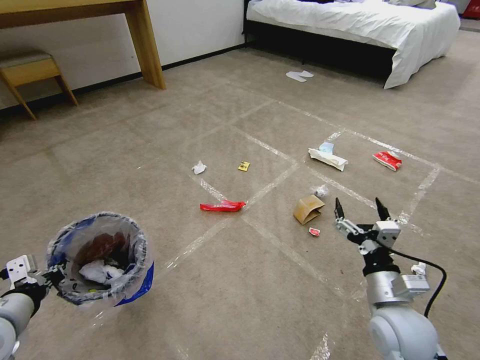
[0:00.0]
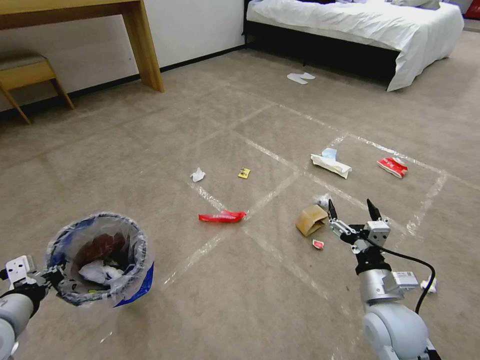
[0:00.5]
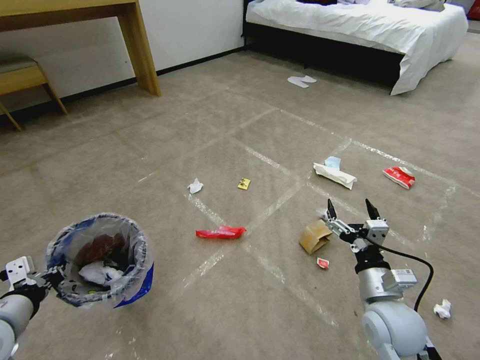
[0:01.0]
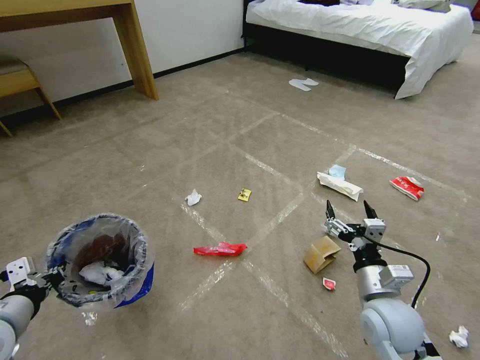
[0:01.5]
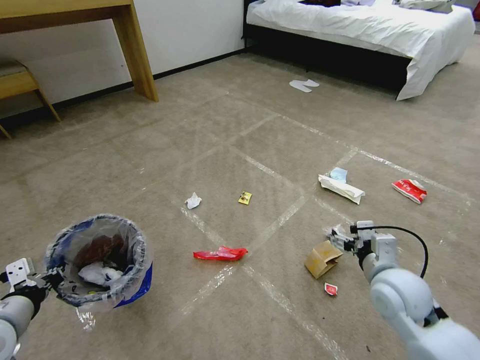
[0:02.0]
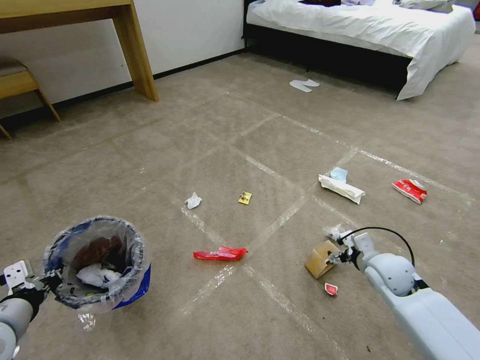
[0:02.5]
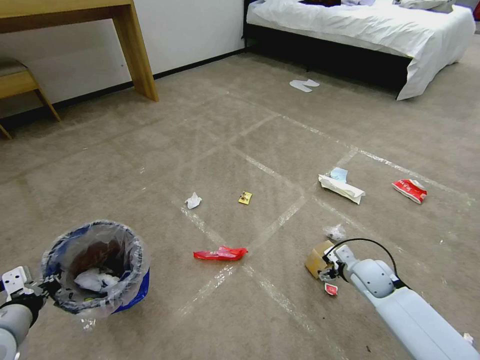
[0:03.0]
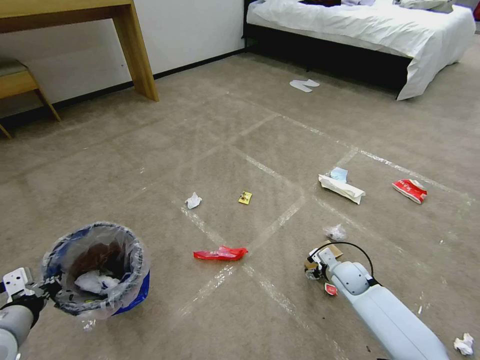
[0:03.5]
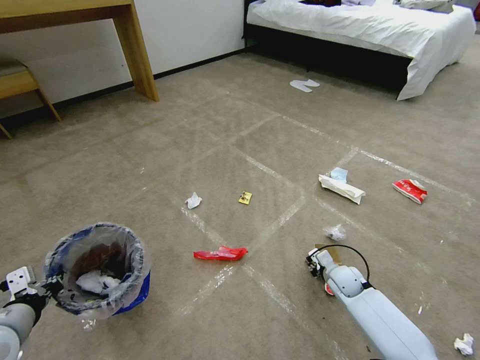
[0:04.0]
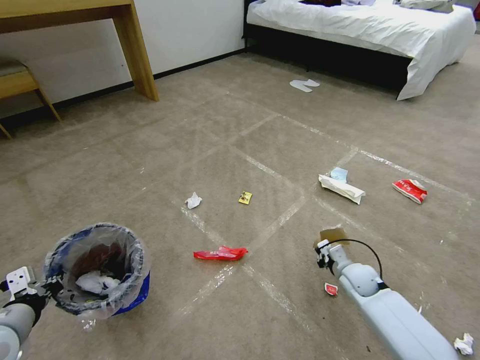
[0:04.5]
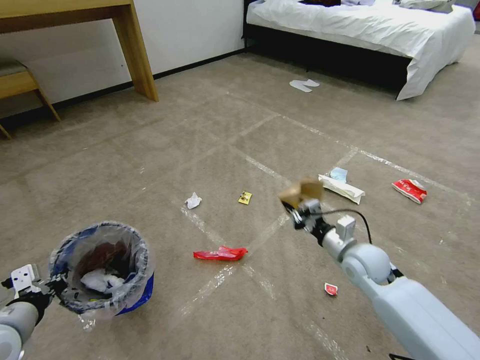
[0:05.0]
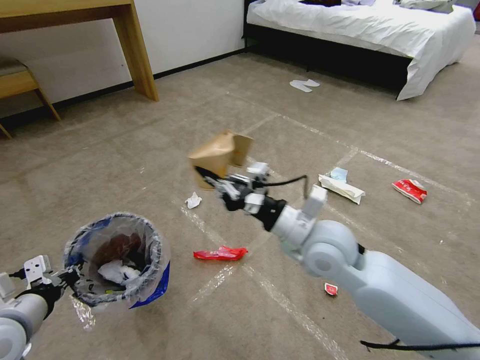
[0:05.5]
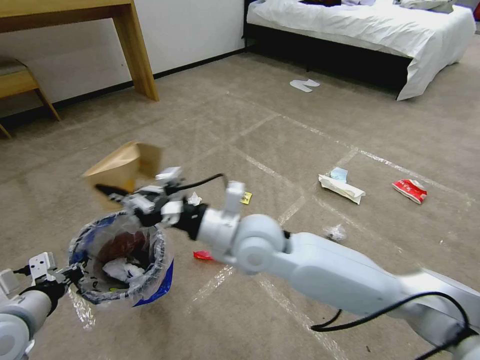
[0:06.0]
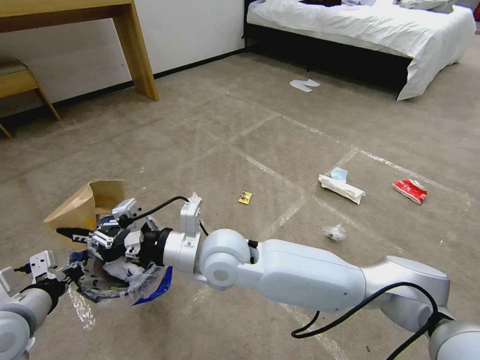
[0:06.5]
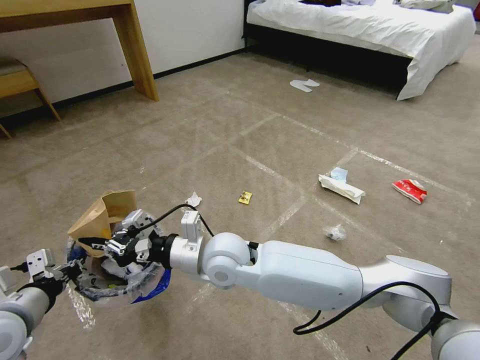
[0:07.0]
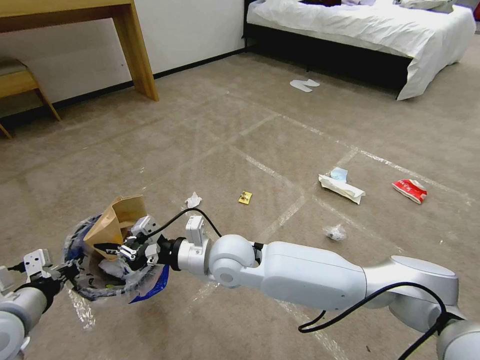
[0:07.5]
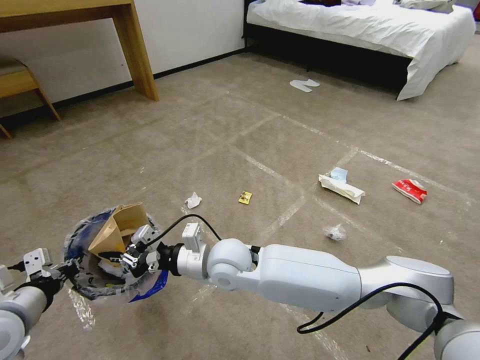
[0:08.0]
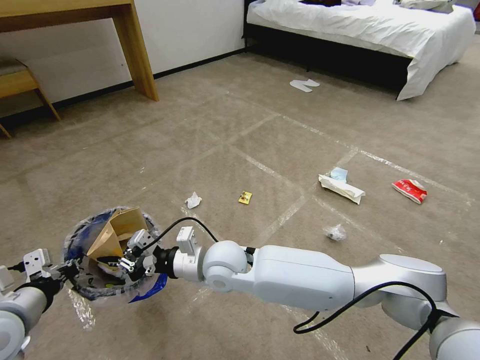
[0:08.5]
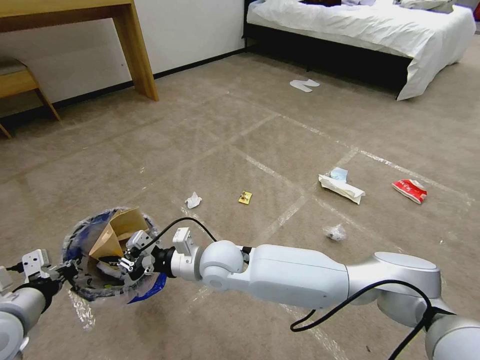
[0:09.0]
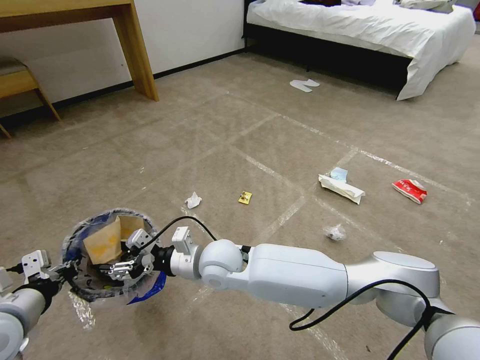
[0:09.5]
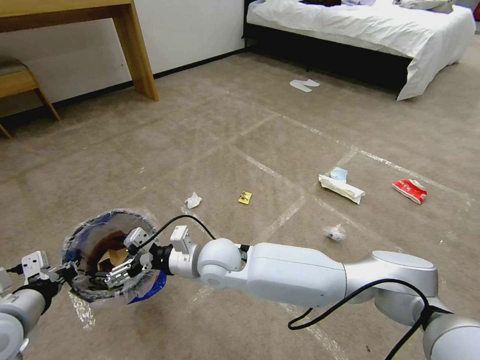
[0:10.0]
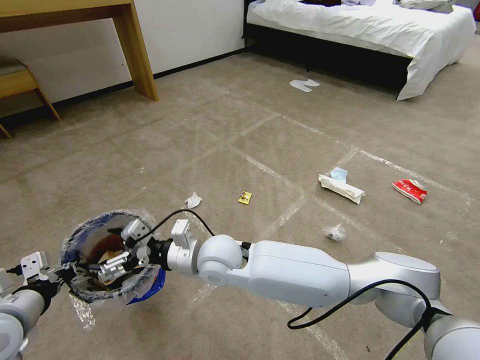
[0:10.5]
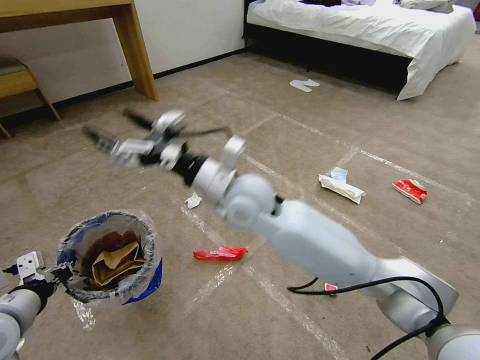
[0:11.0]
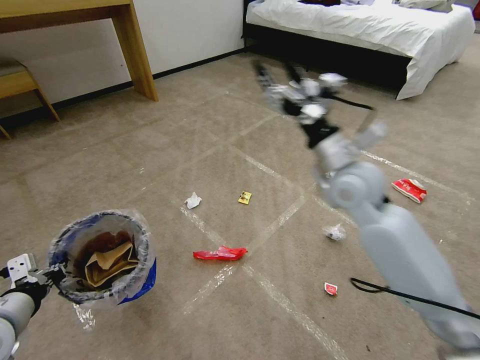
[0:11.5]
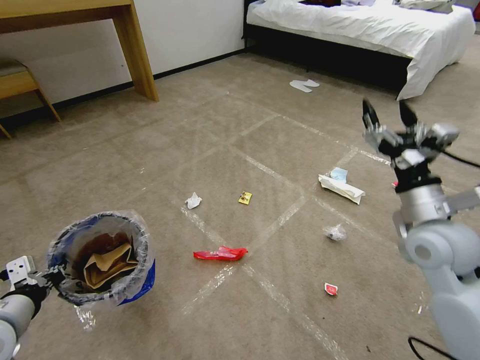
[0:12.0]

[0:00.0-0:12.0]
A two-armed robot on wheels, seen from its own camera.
Task of the whole recording: Pick up the trash bin and place the garbage on the floor into it.
0:00.0 to 0:02.0: The right gripper changes place by about 5 cm.
0:02.0 to 0:04.0: The right gripper travels downward and forward by about 25 cm, and closes its fingers.
0:04.0 to 0:06.0: The right gripper moves upward and to the left, roughly 40 cm.
0:06.0 to 0:08.0: The right gripper is displaced downward and to the left by some 10 cm.
0:08.0 to 0:10.0: The right gripper opens up.
0:10.0 to 0:12.0: The right gripper heads to the right, covering approximately 40 cm.

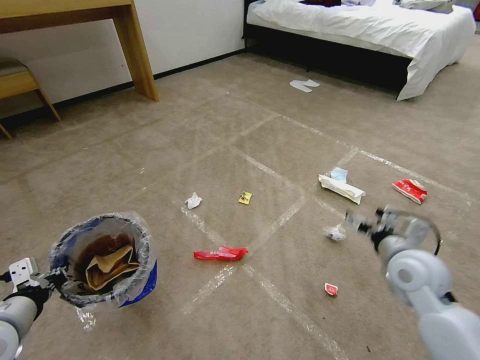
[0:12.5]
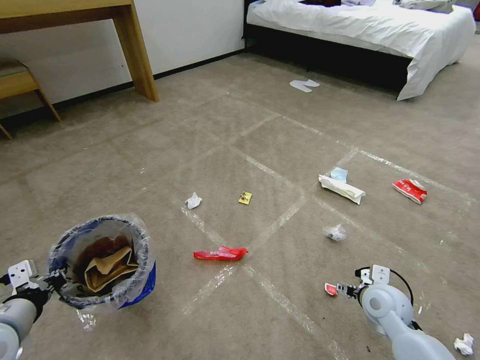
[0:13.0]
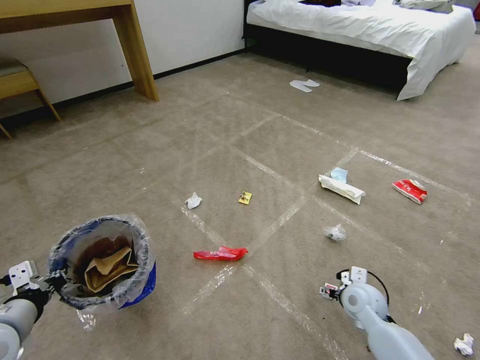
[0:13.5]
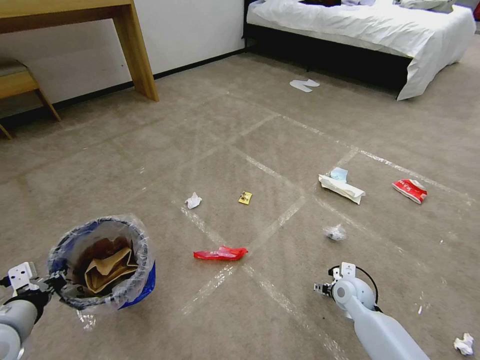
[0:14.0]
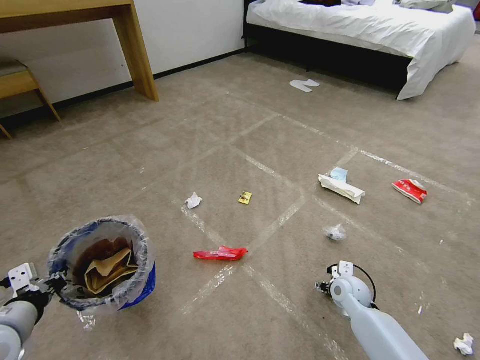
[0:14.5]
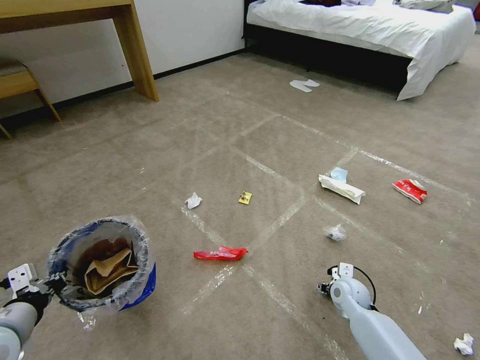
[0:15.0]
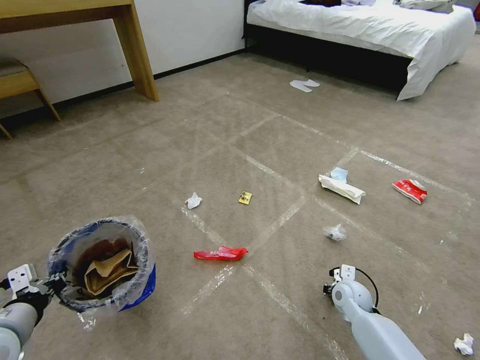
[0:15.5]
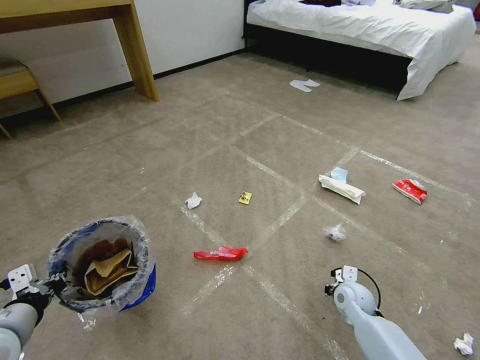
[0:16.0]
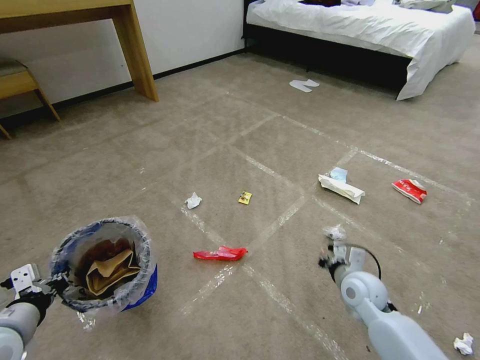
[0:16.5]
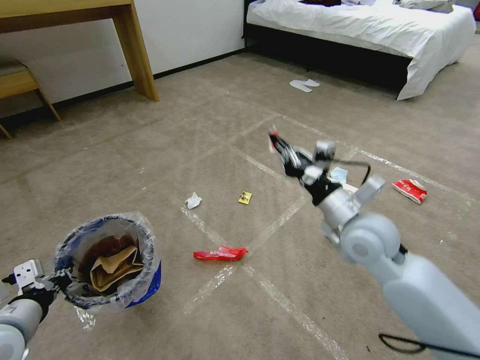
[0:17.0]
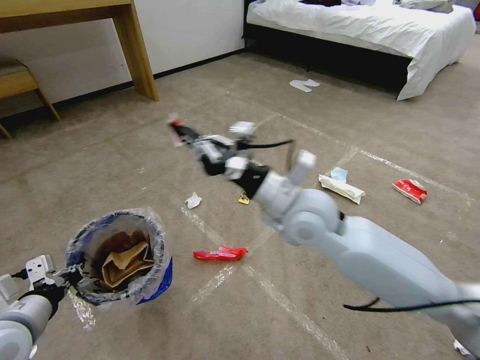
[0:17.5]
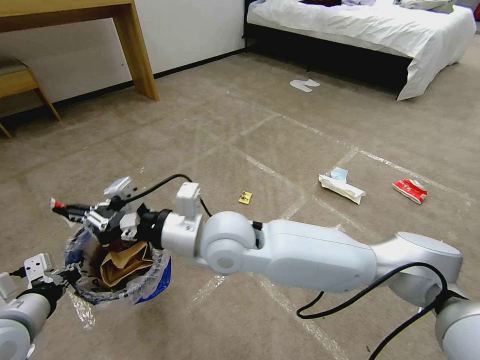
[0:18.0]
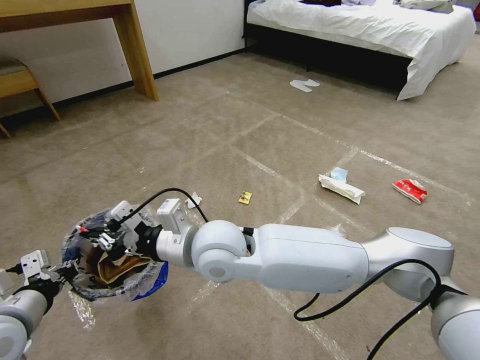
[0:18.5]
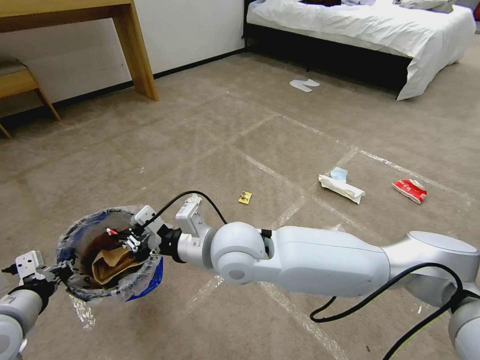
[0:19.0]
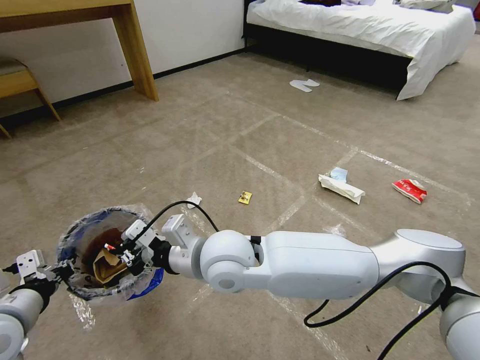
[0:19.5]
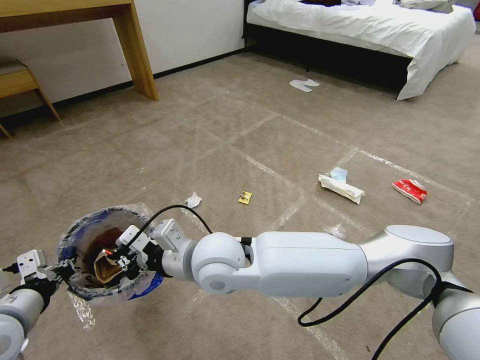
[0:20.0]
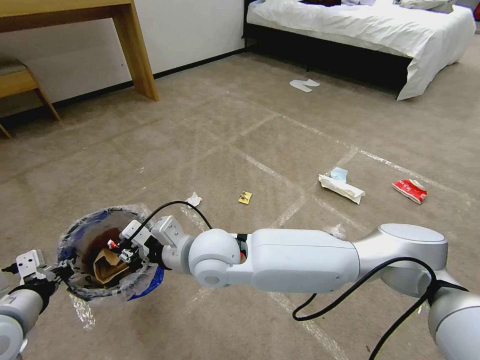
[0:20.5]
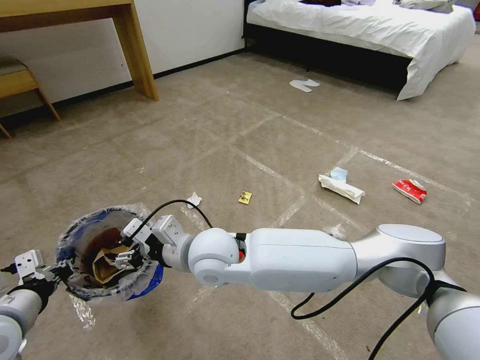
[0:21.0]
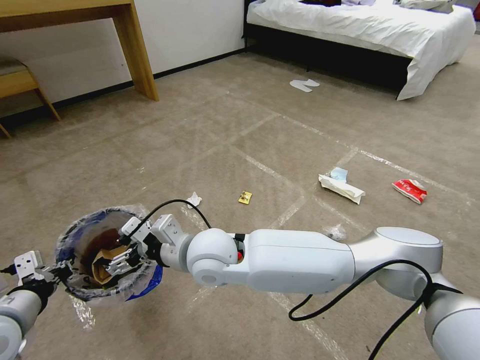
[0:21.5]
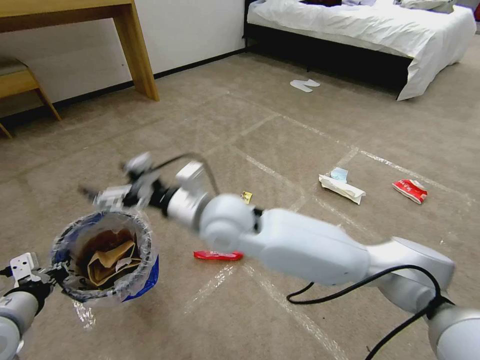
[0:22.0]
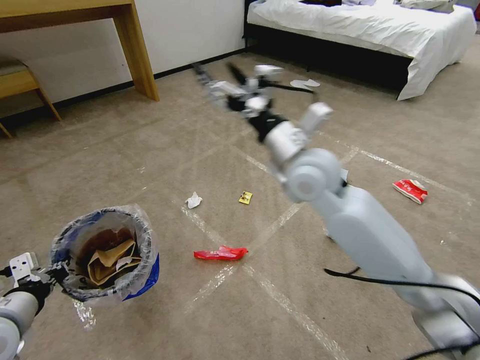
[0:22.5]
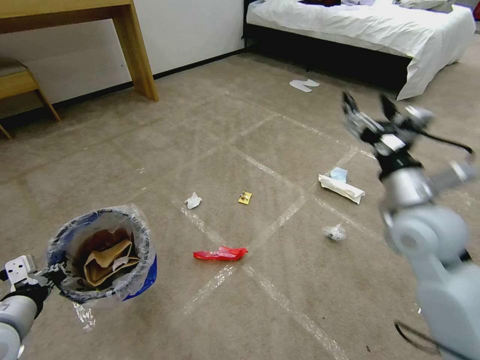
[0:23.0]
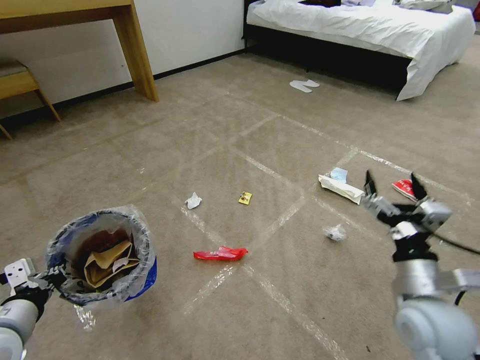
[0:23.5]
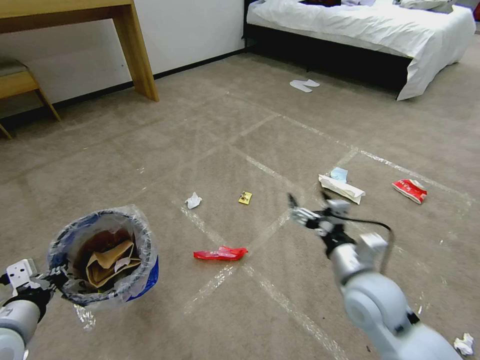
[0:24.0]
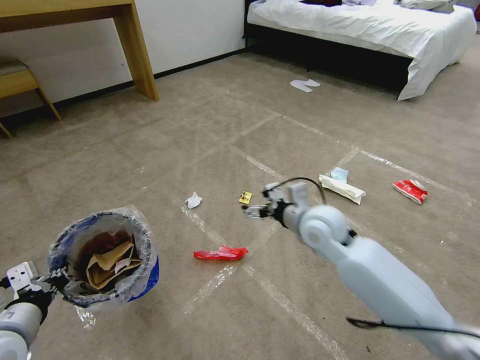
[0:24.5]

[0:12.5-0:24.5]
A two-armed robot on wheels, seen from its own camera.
Task of the whole recording: Pick up the trash bin and place the garbage on the floor into it.
0:12.5 to 0:14.5: The right gripper is displaced downward by roughly 20 cm.
0:14.5 to 0:16.5: The right gripper goes roughly 10 cm upward, and closes.
0:16.5 to 0:18.5: The right gripper shifts about 40 cm to the left and upward.
0:18.5 to 0:20.5: The grippers stay close to where they were, moving slightly.
0:20.5 to 0:22.5: The right gripper shifts approximately 25 cm to the right, upward and forward, and opens up.
0:22.5 to 0:24.5: The right gripper shifts some 15 cm downward, and moves about 20 cm backward and comes back.

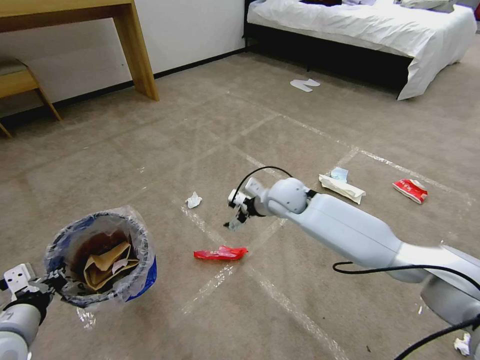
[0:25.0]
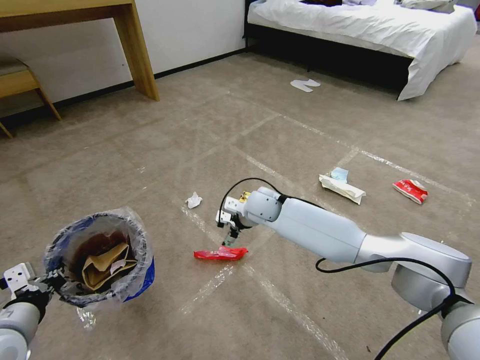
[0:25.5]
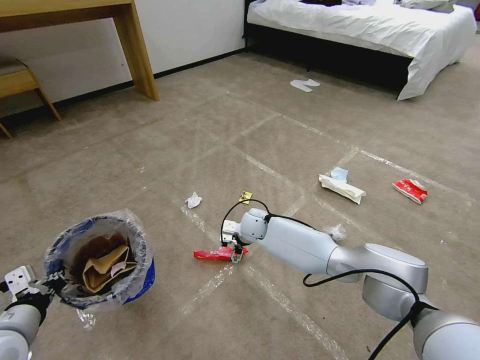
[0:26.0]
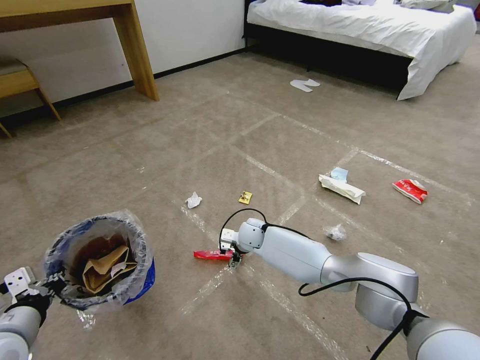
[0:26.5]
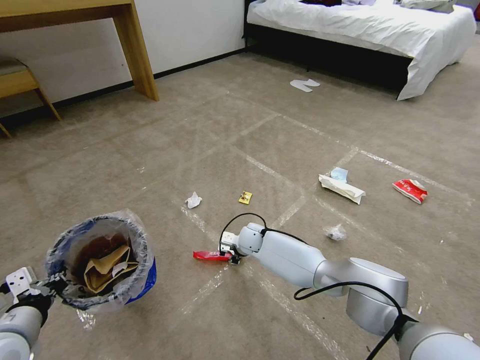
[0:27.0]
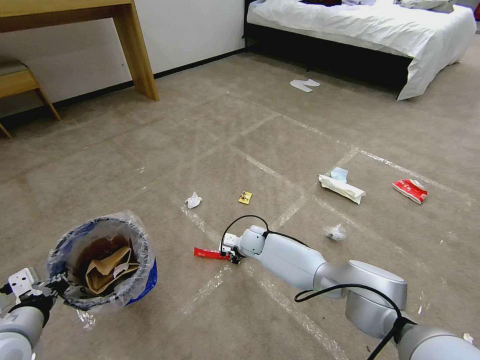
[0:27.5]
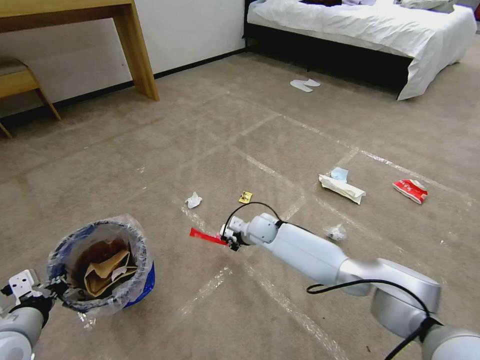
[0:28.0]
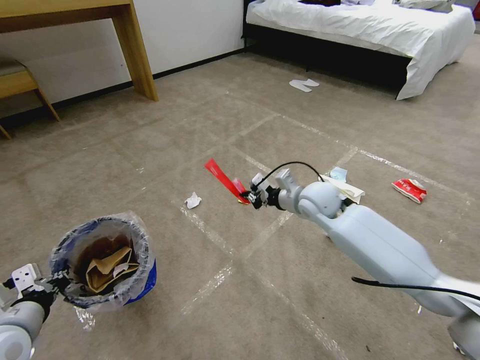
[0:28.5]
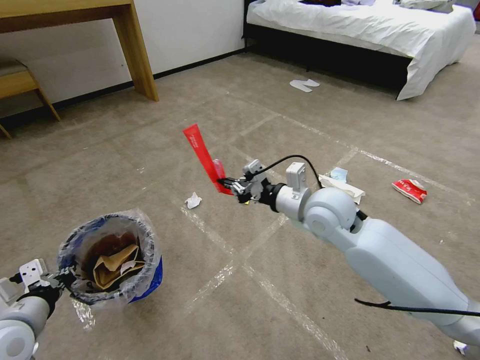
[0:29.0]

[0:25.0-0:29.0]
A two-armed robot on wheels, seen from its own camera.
Task of the whole recording: Pick up the trash bin and place the garbage on the floor into it.
0:25.0 to 0:27.0: The right gripper shifts approximately 20 cm downward, and closes up.
0:27.0 to 0:29.0: The right gripper goes approximately 30 cm upward, to the right and backward, and closes its fingers.
